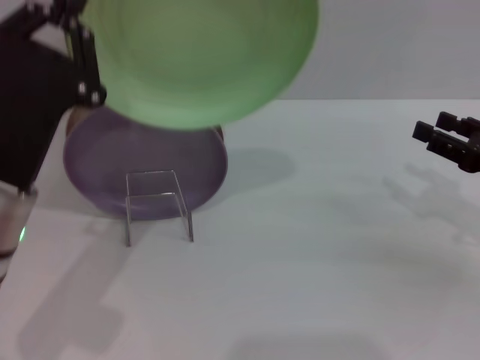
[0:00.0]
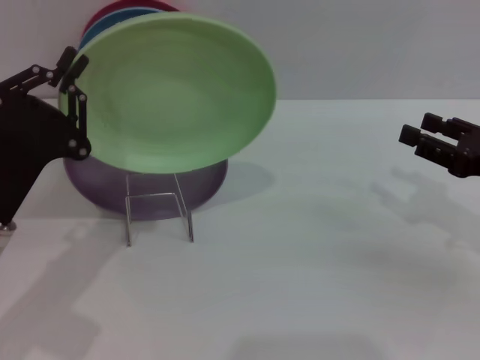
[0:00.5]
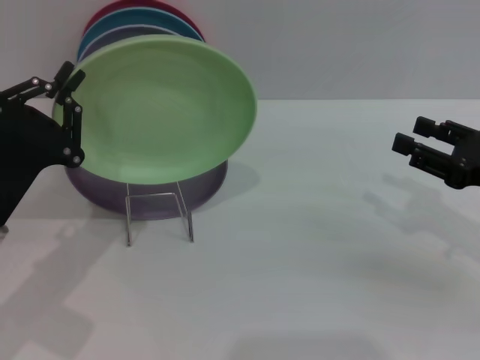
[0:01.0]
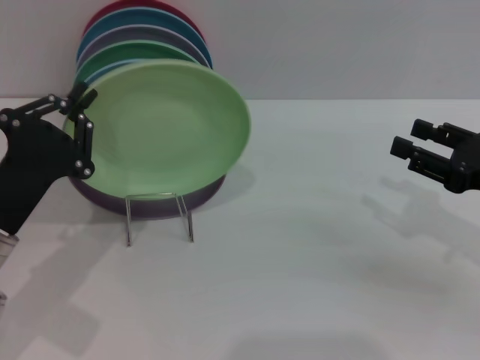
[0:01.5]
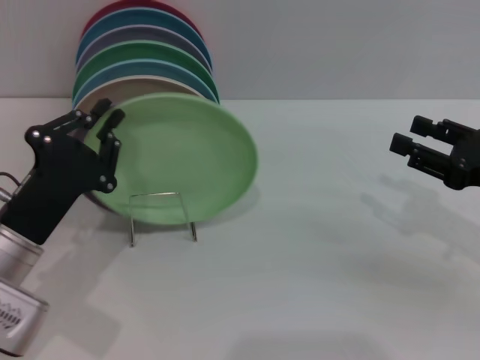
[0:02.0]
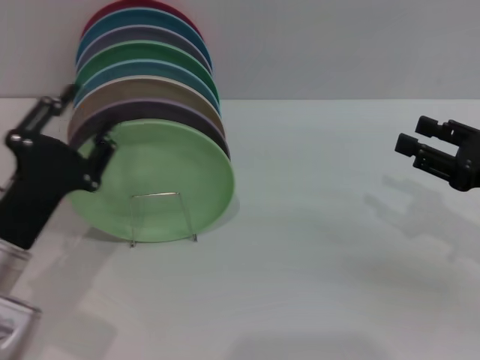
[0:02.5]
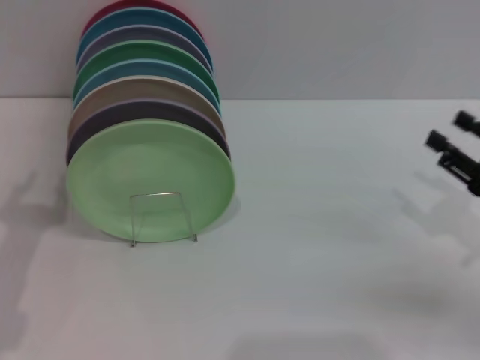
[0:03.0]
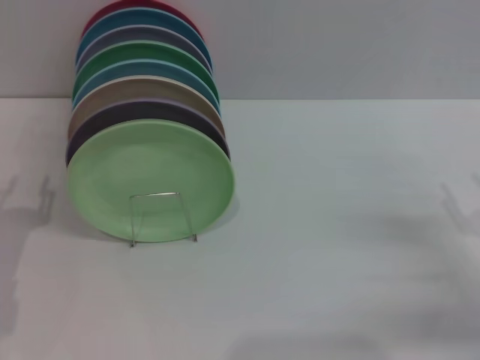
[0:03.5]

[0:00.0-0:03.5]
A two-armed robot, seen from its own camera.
Task of the whole recording: Grip the plate with one hand, pass it to the other, then set it on the shelf.
Step, 0:00.0 to 0:02.0: Place the plate on the shelf with the left gripper.
0:00.0 to 0:02.0: The left gripper shifts some 5 cm downward.
0:02.0 to 0:03.5: The right gripper is displaced downward by about 5 cm, while the left gripper goes about 5 cm to the left, and opens its fingers.
